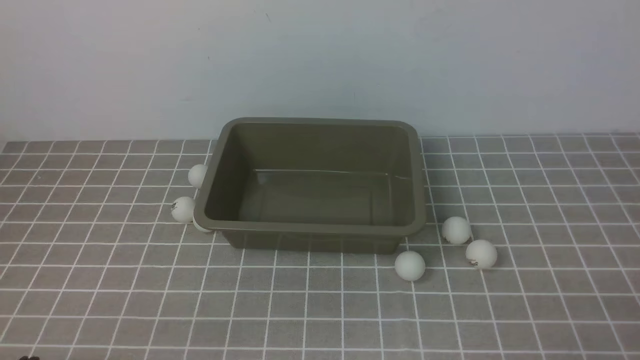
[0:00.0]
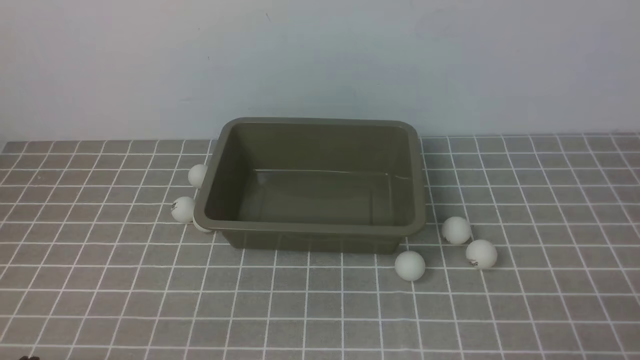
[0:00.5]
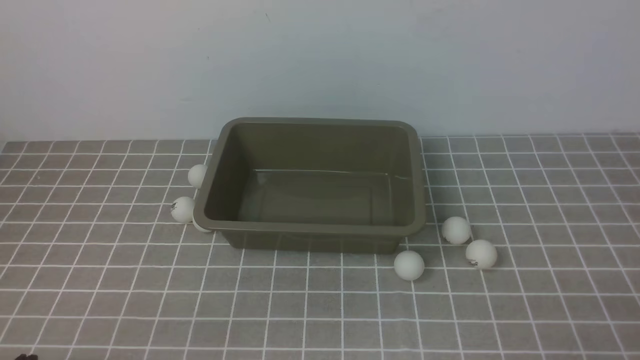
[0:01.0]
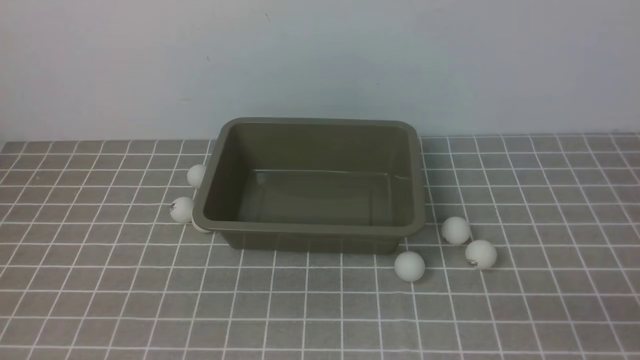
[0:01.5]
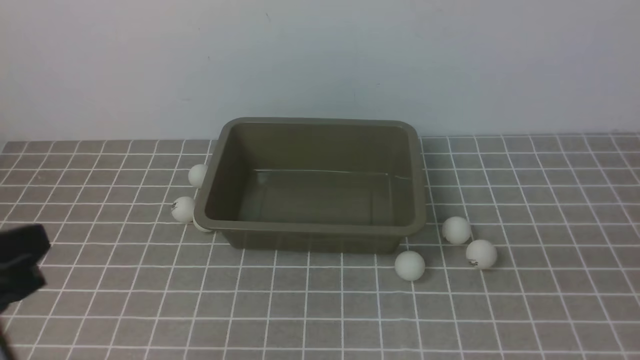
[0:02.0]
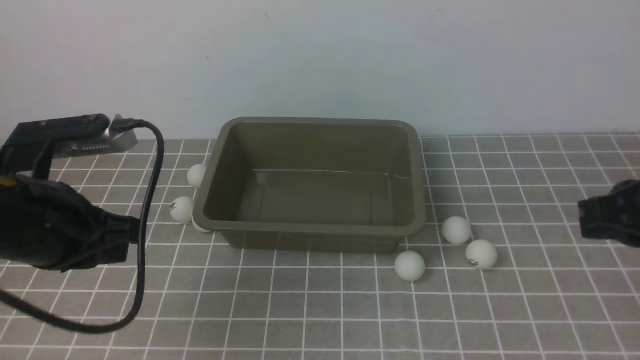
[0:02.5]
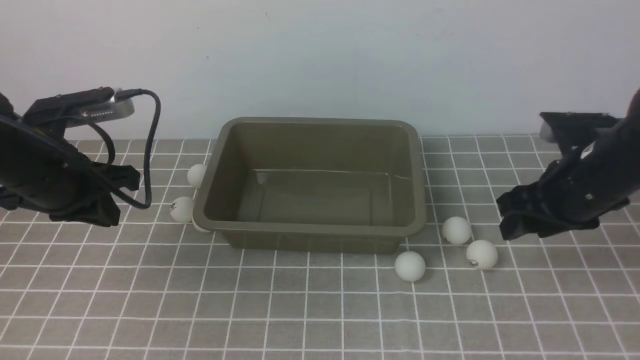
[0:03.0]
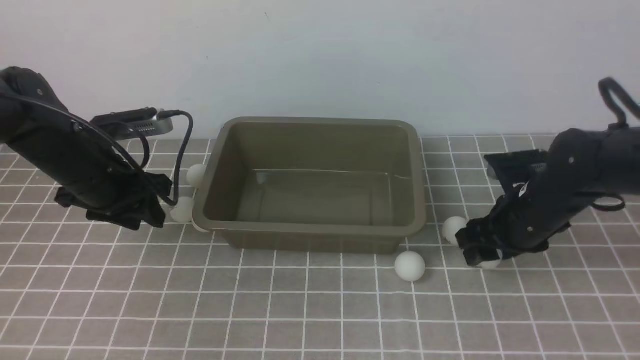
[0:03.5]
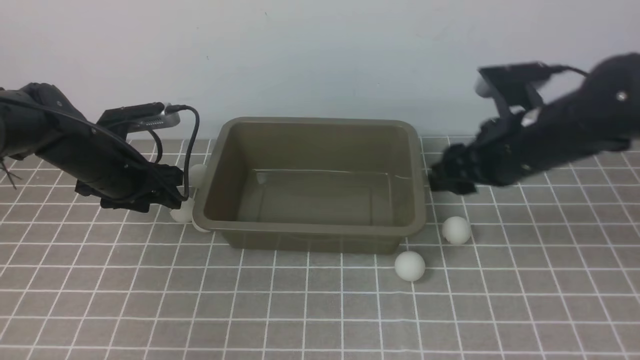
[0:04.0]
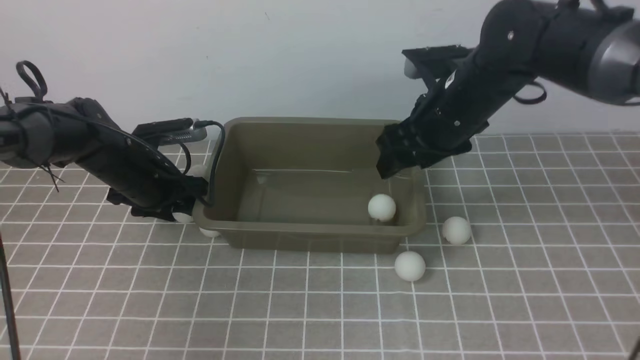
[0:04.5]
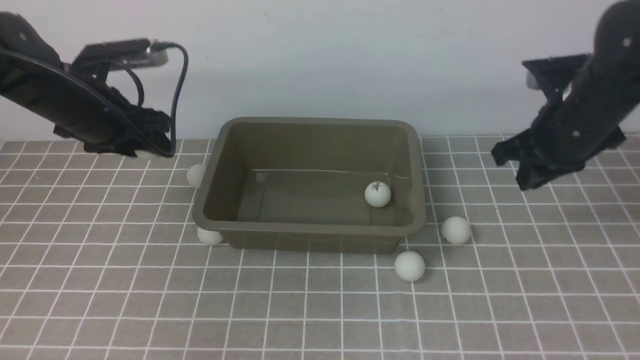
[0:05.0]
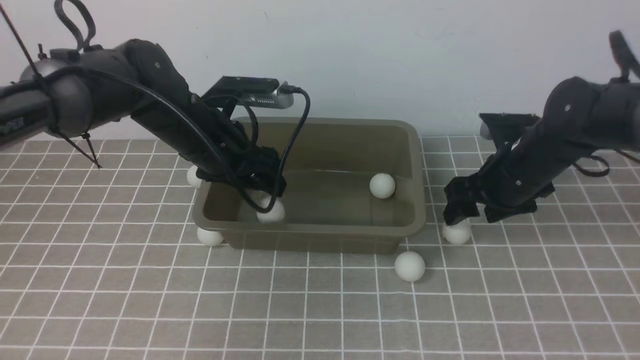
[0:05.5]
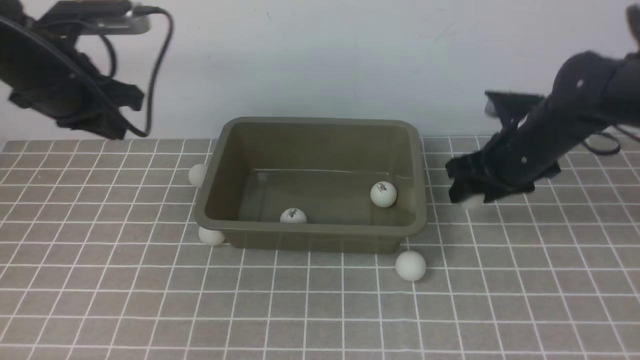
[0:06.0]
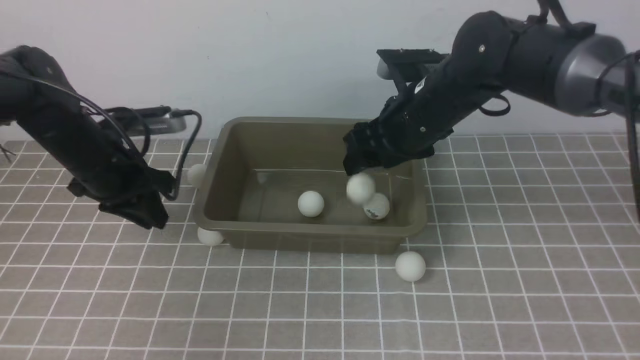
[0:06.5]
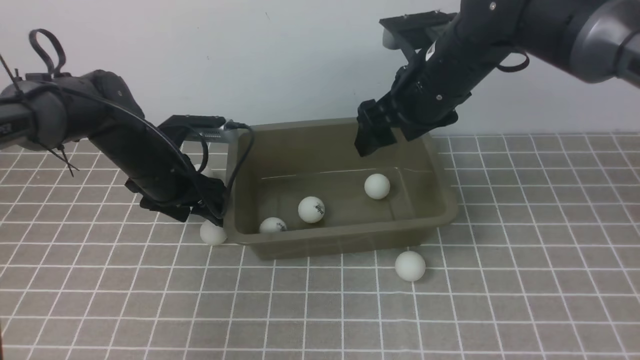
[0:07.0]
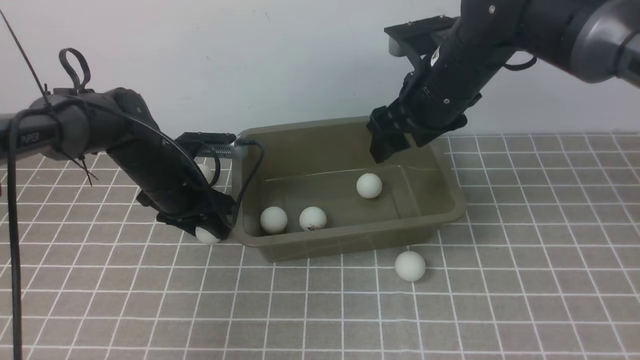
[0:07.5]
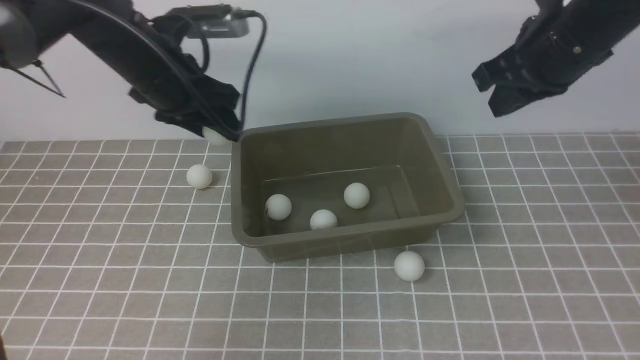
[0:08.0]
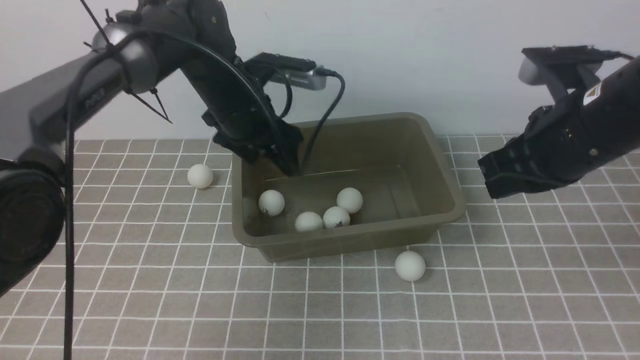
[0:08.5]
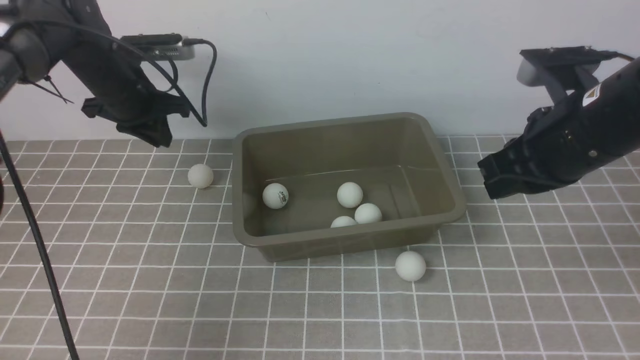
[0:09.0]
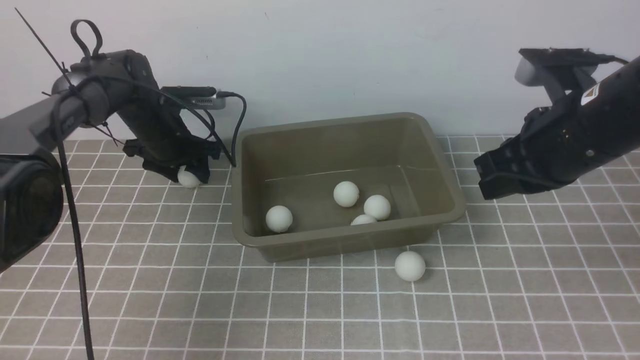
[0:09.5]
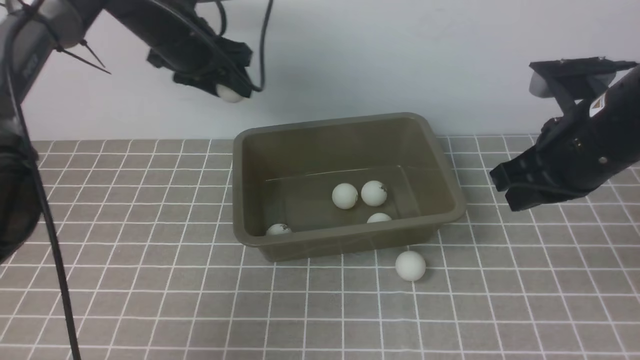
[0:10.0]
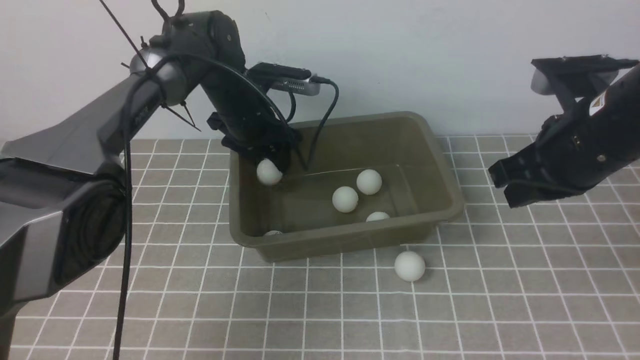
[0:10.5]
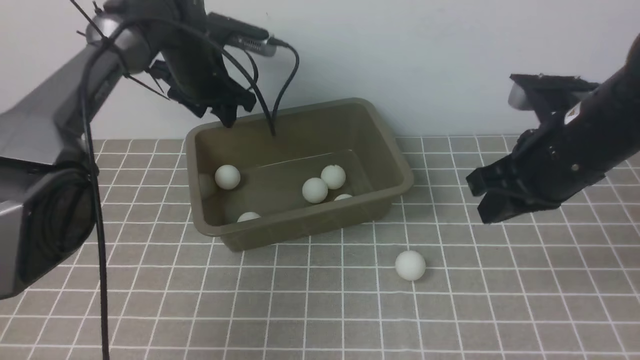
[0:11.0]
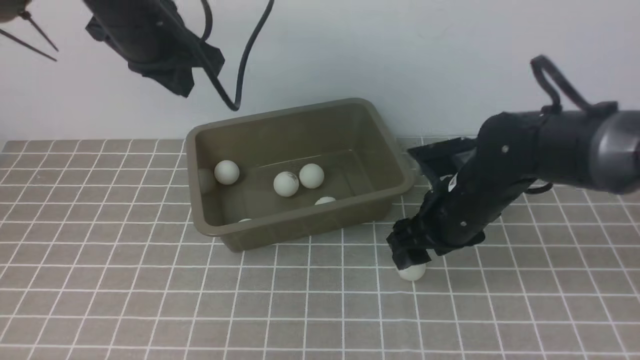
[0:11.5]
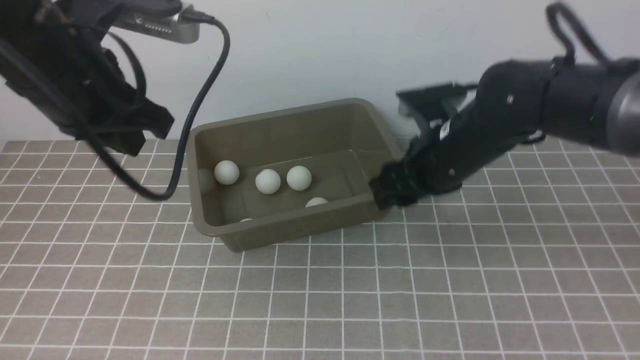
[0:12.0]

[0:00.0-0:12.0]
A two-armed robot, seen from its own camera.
Step, 0:00.0 to 0:03.5: use the right arm to clamp the table tennis ball closest to it.
Step, 0:05.0 to 0:05.5: use the left arm to put the table tennis ball into the box.
Step, 0:07.0 to 0:07.5: use the left arm to clamp the table tennis ball closest to it.
Step, 0:09.0 to 0:09.5: use the left arm to clamp the table tennis ball closest to it.
Step, 0:10.0 to 0:10.5: use the left arm to put the table tennis ball into the box.
0:00.0 to 0:02.0: The left gripper is displaced upward and forward by approximately 15 cm.
0:02.0 to 0:04.0: The left gripper shifts about 35 cm forward and downward, and opens its fingers. The right gripper heads forward, covering about 30 cm, and opens its fingers.
0:04.0 to 0:06.0: The left gripper heads upward, covering approximately 10 cm, and closes; the right gripper goes downward and returns, approximately 5 cm each way.
0:06.0 to 0:08.0: The left gripper moves to the right, about 10 cm, reaches some 10 cm downward, then returns, and opens. Meanwhile the right gripper heads upward, covering some 15 cm, and closes.
0:08.0 to 0:10.0: The right gripper travels backward by roughly 5 cm; the left gripper moves forward, about 5 cm, and moves approximately 10 cm downward and comes back.
0:10.0 to 0:12.0: The right gripper heads to the left, forward and downward, covering approximately 15 cm, and opens up, while the left gripper moves backward and upward, about 20 cm, and closes.

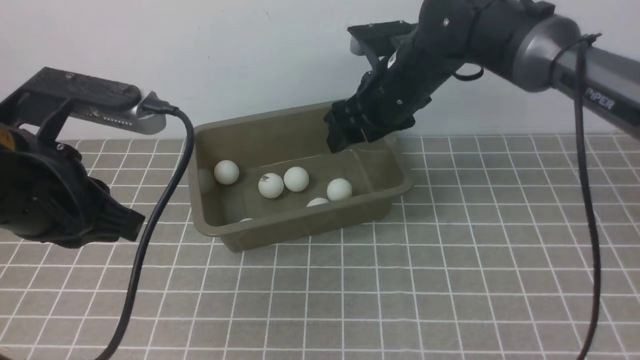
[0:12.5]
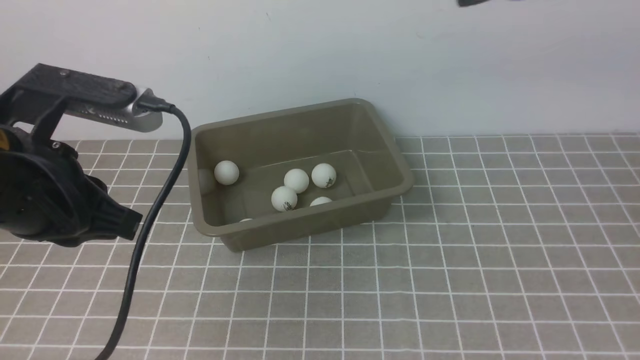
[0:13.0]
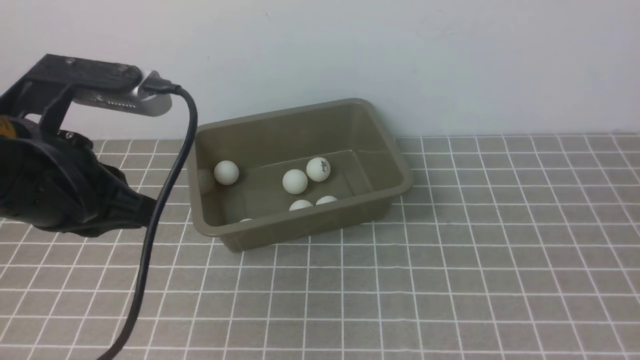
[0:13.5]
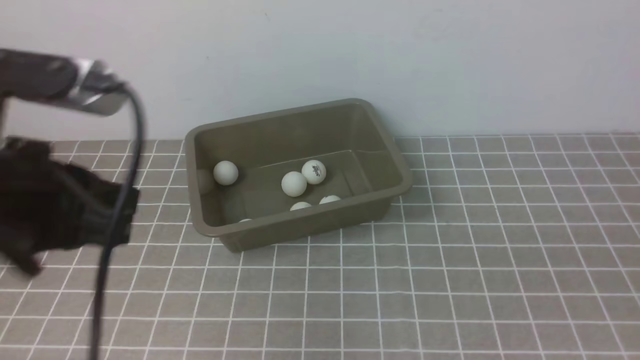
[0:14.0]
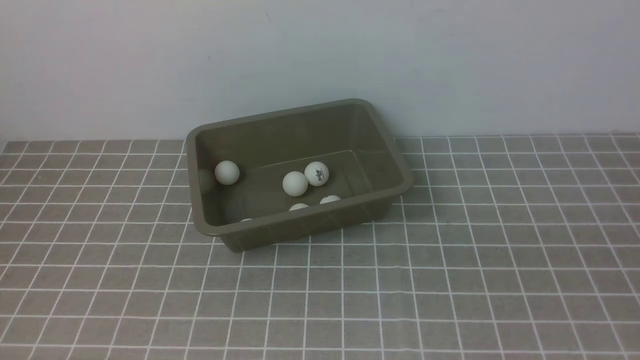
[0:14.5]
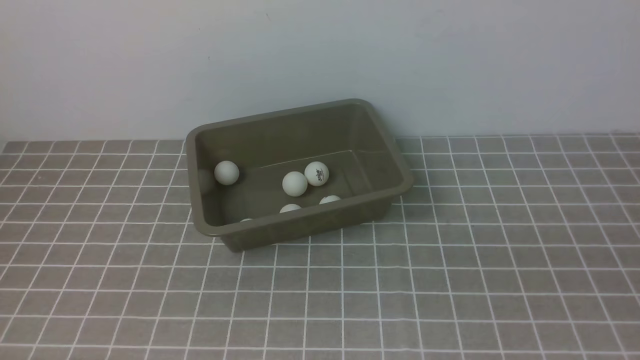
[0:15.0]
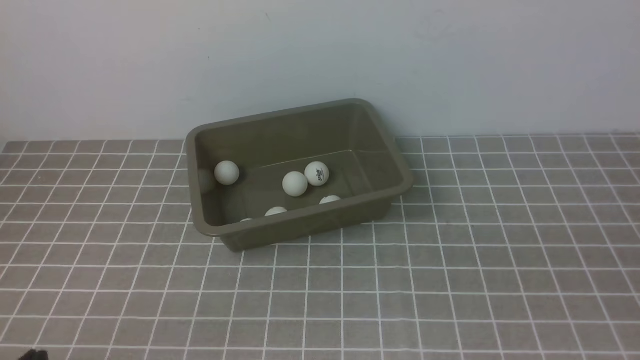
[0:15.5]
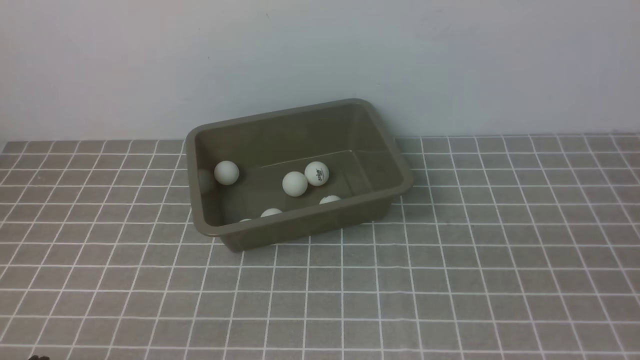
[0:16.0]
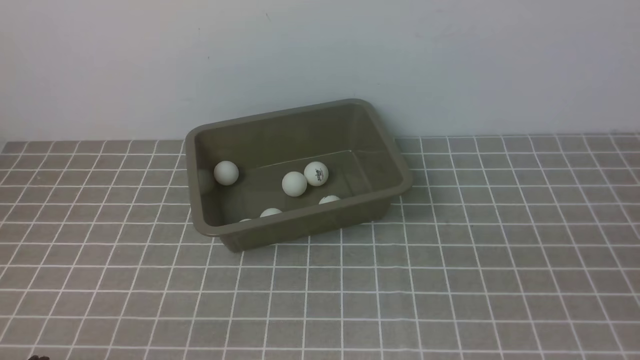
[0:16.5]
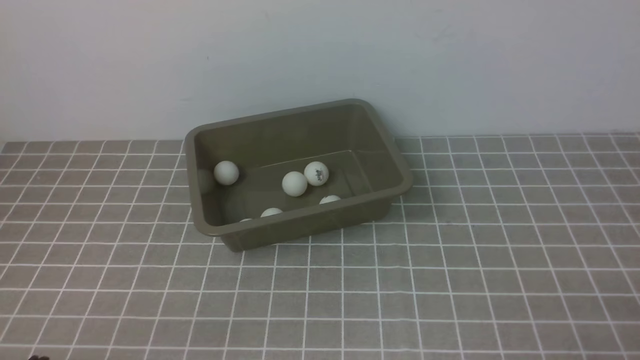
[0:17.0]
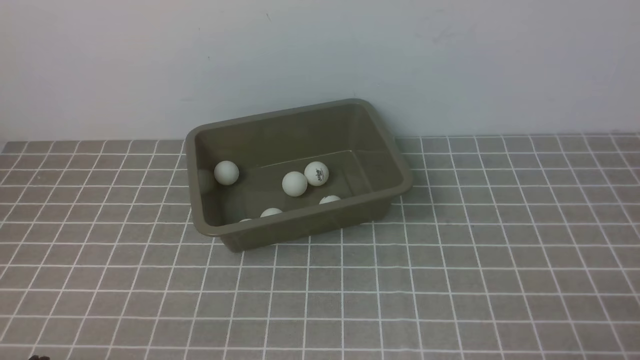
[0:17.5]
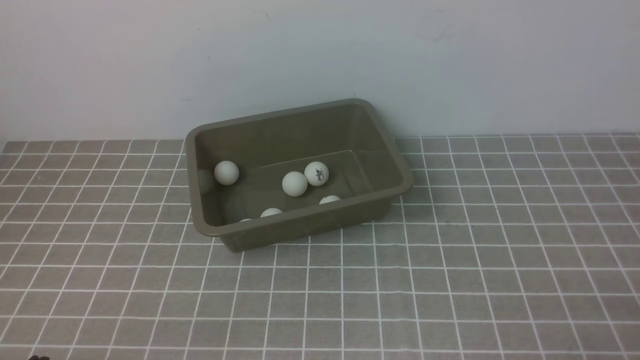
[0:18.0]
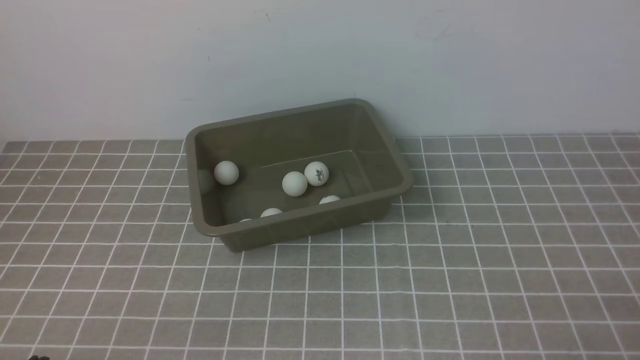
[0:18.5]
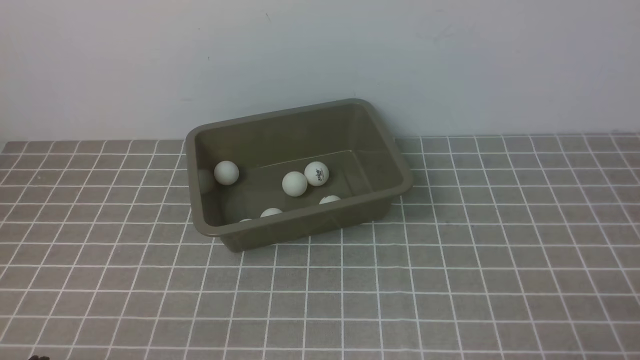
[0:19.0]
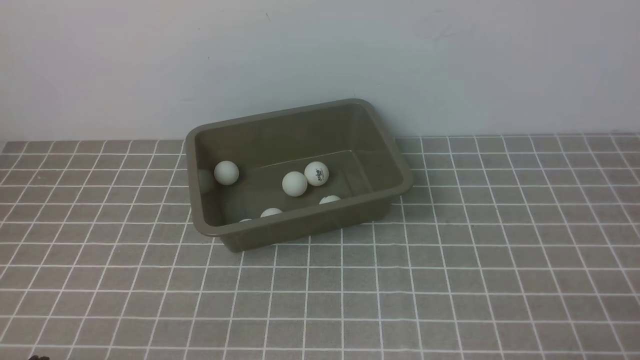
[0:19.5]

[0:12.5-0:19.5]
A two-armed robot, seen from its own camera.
0:12.5 to 0:14.5: The right gripper moves backward and to the right, roughly 40 cm, and closes, while the left gripper shifts roughly 20 cm backward.
0:17.5 to 0:19.5: Both grippers stay about where they are.
